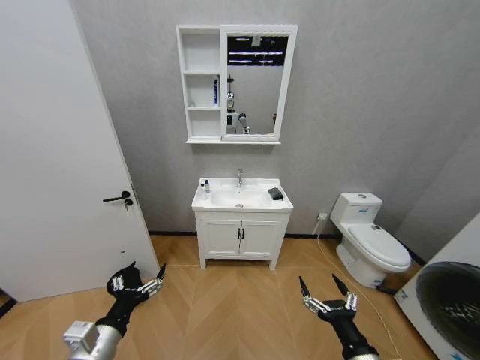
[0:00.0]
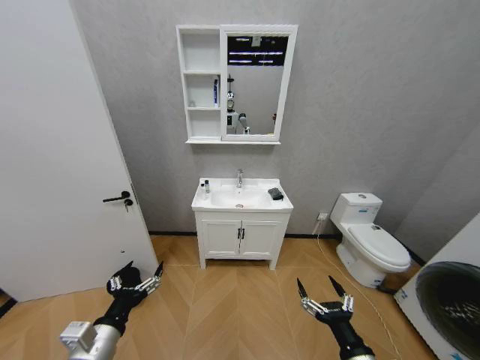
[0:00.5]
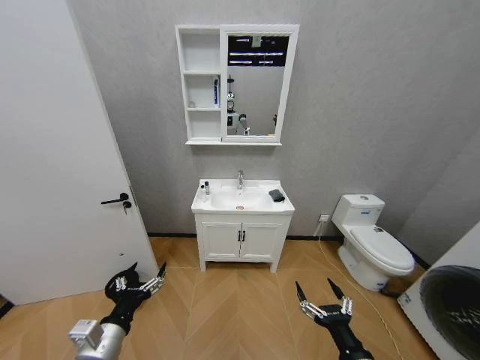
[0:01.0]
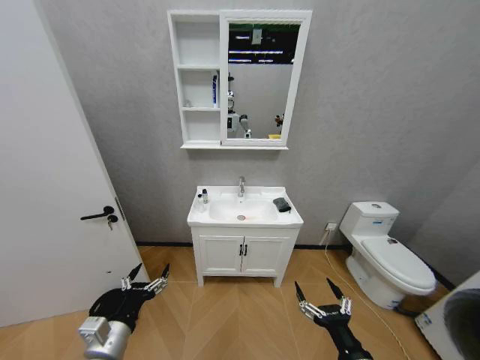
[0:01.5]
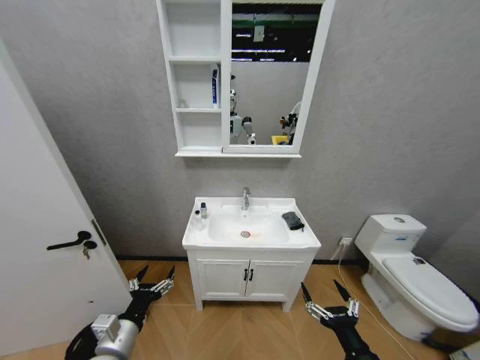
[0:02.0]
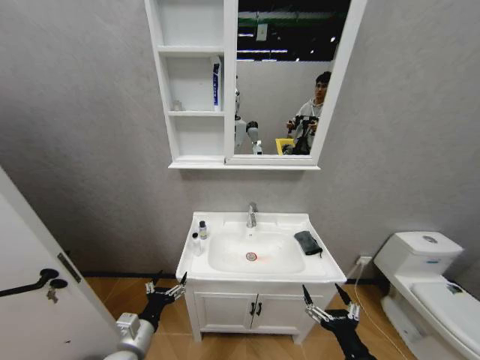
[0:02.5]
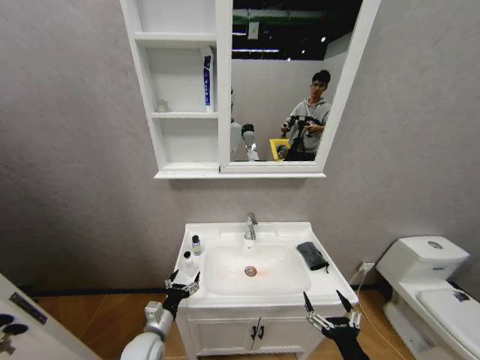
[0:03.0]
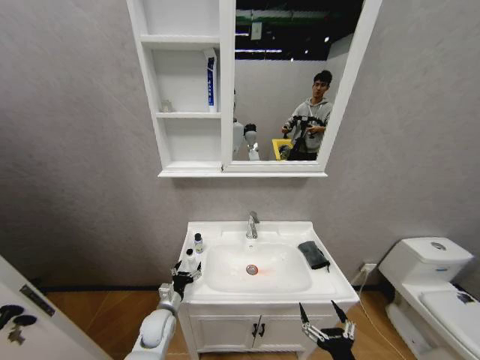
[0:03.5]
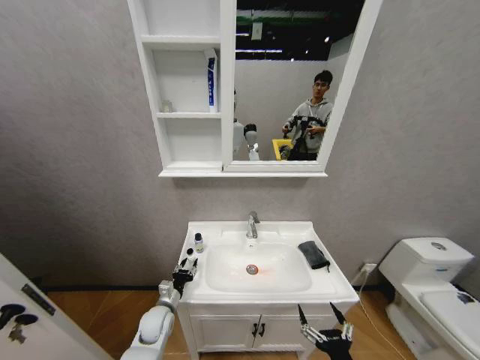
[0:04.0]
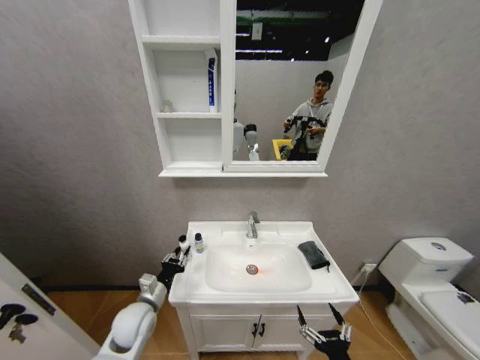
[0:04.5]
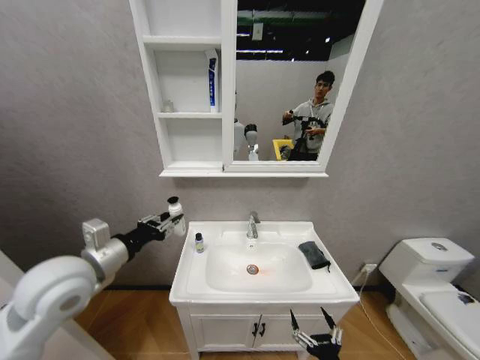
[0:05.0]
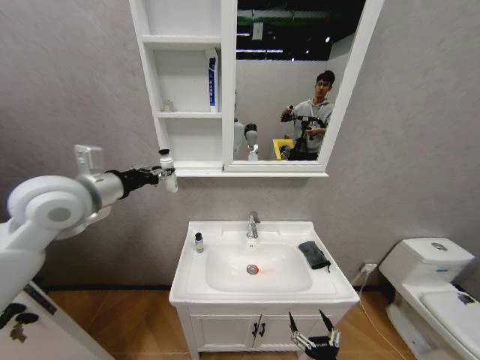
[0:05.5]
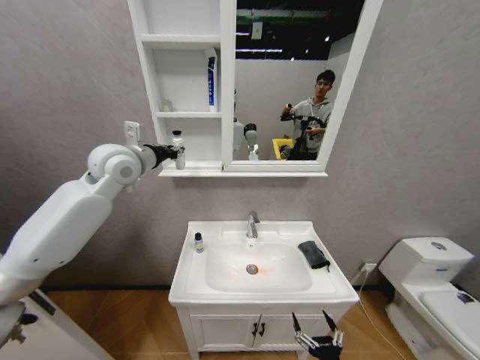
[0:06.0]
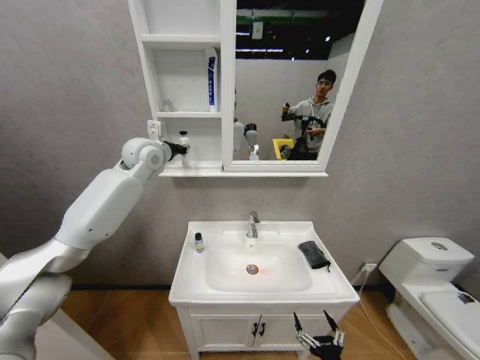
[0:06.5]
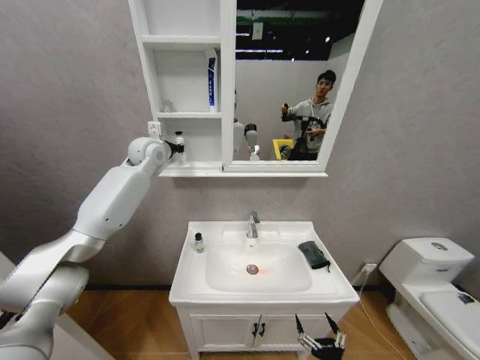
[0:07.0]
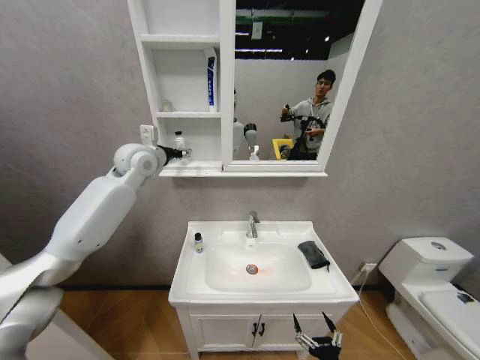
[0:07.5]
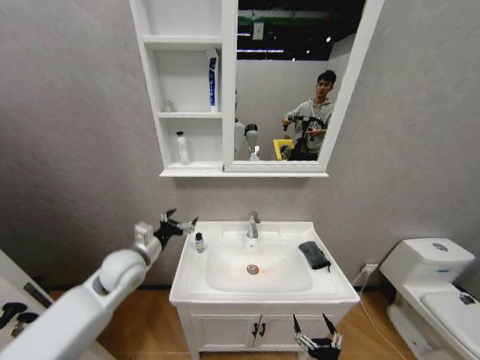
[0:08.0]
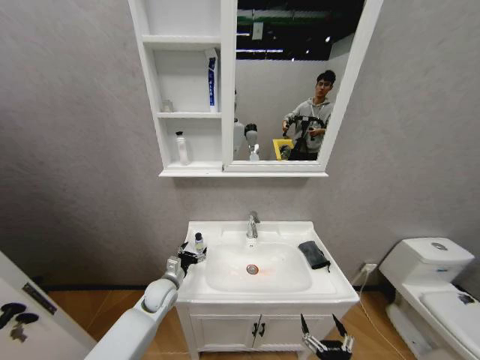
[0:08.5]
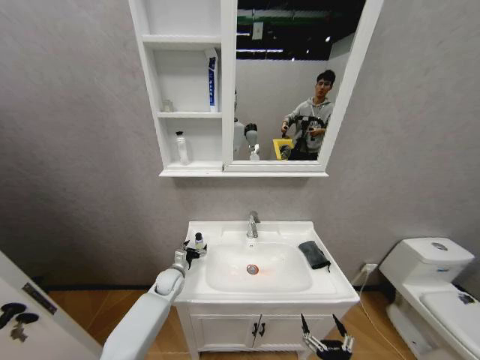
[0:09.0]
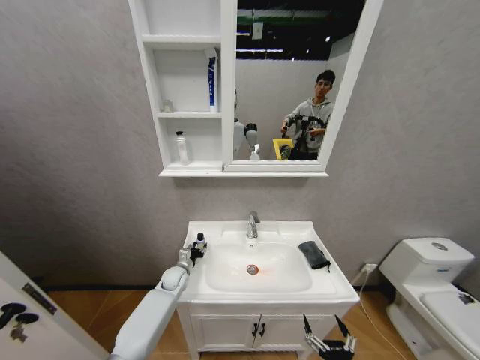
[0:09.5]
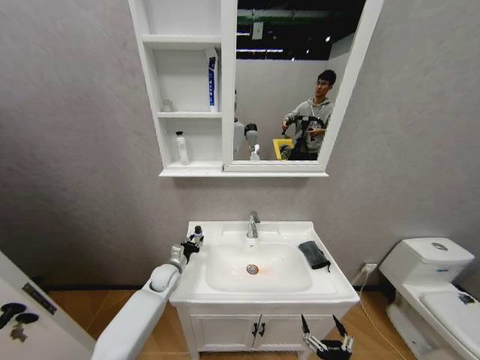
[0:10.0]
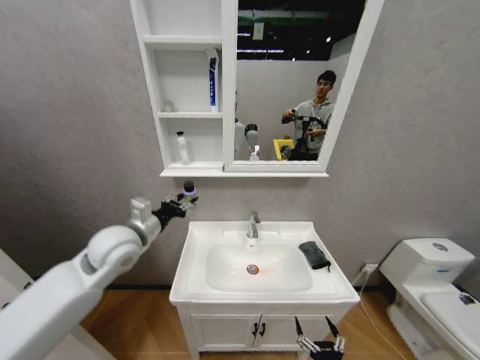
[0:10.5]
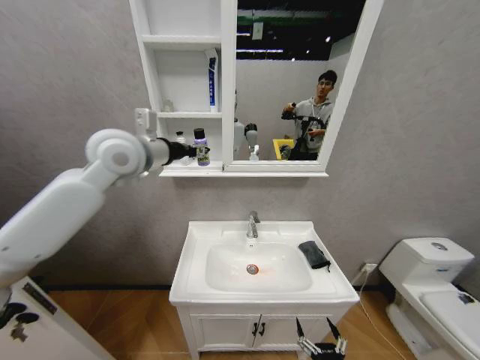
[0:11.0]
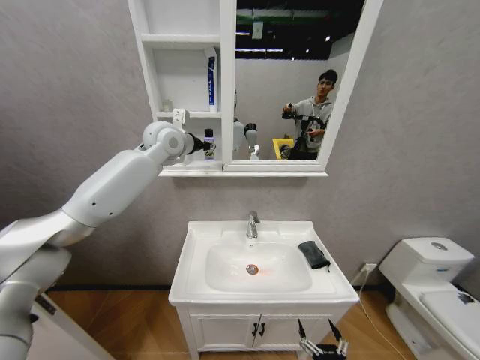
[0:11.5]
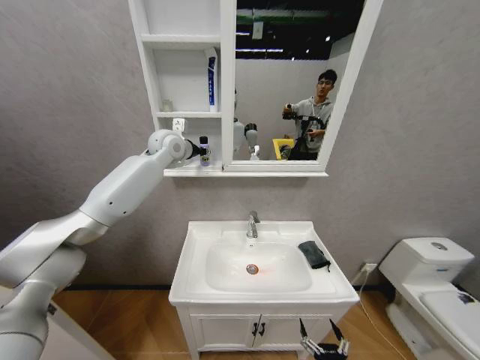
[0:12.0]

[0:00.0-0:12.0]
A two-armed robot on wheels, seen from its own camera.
Task of the whole recording: Move facial cleanser and shampoo from washbasin to cabinet, then wipe washbasin with towel.
0:02.0 to 0:04.0: The right gripper heads downward, covering roughly 5 cm; the left gripper heads forward and downward, covering roughly 20 cm, and closes up.
0:04.0 to 0:06.0: The left gripper moves upward, some 50 cm, and closes up.
0:06.0 to 0:08.0: The left gripper is displaced downward by about 25 cm, and opens.
0:08.0 to 0:10.0: The left gripper travels downward and forward by approximately 20 cm, and closes up.
0:10.0 to 0:12.0: The left gripper goes about 40 cm upward.

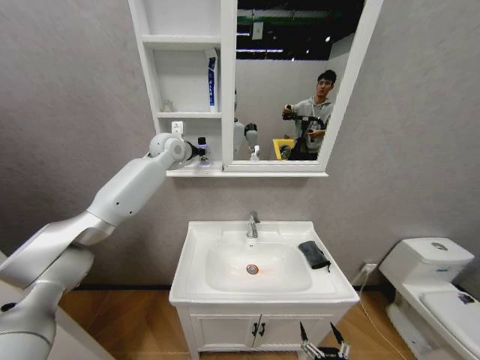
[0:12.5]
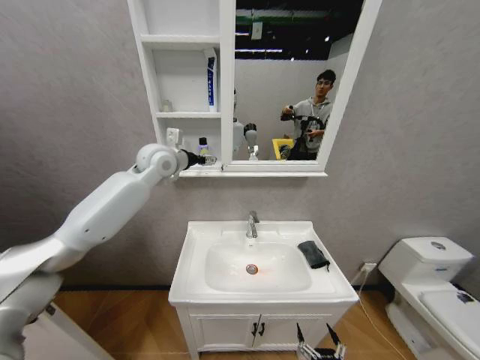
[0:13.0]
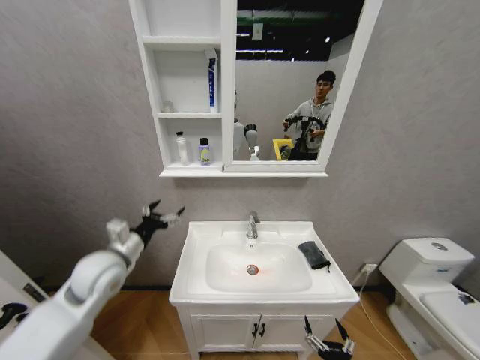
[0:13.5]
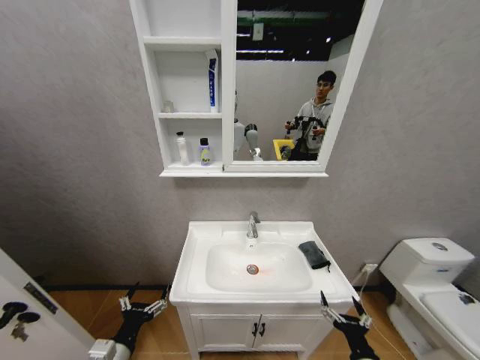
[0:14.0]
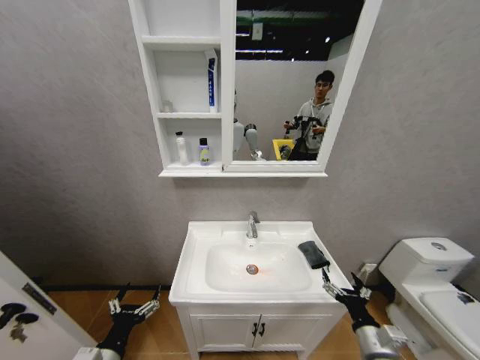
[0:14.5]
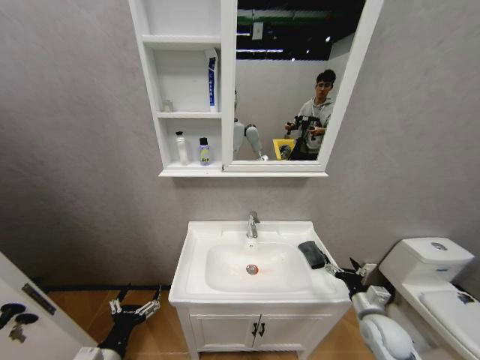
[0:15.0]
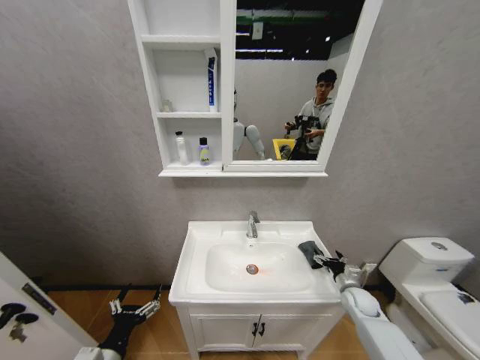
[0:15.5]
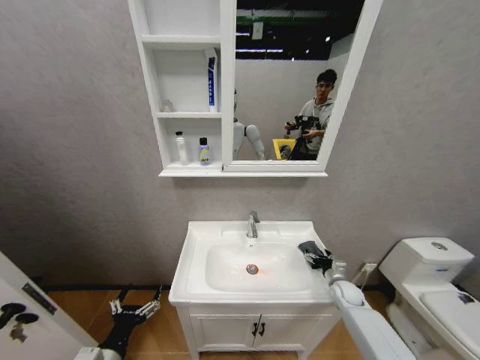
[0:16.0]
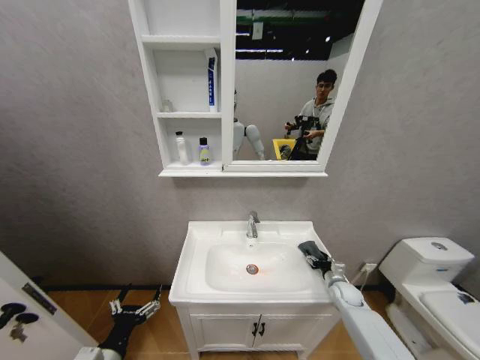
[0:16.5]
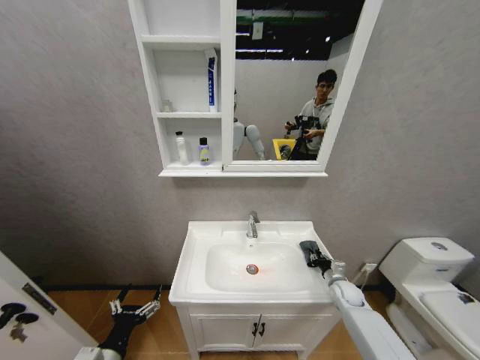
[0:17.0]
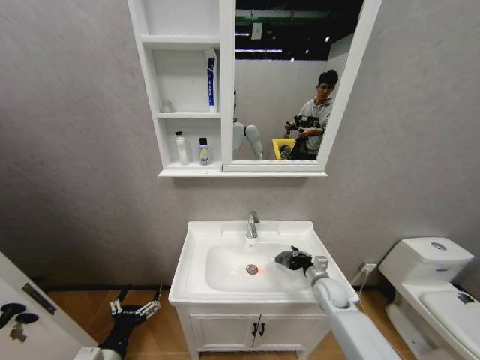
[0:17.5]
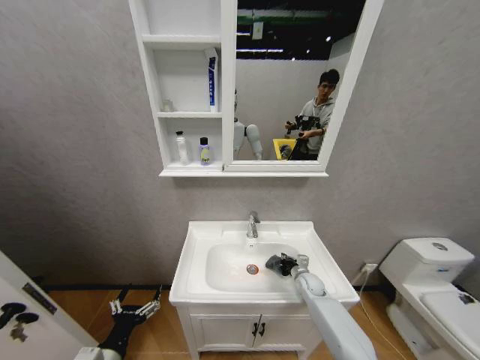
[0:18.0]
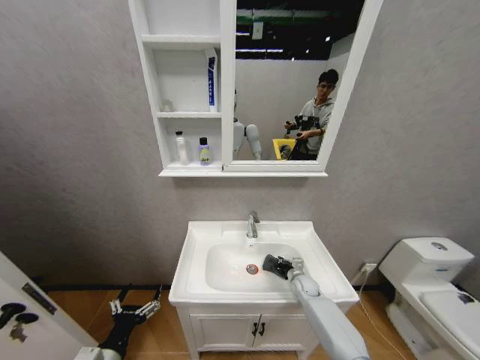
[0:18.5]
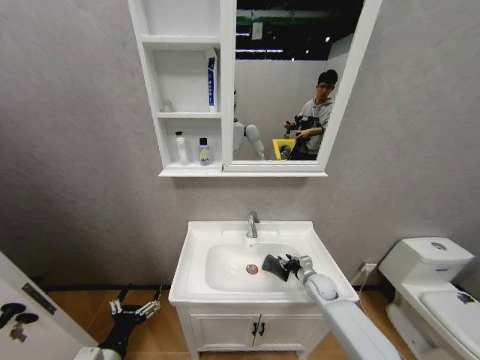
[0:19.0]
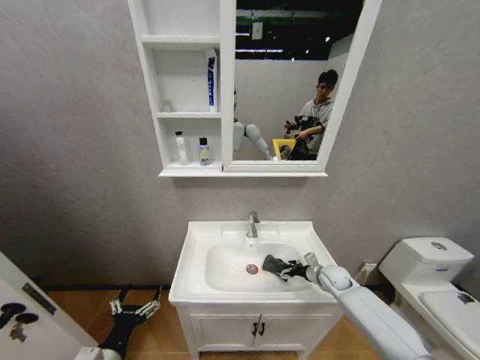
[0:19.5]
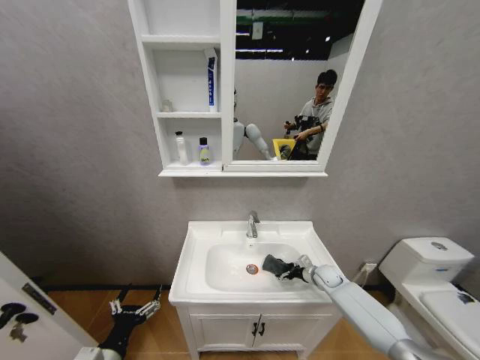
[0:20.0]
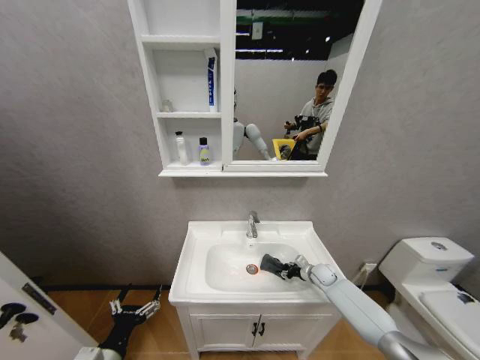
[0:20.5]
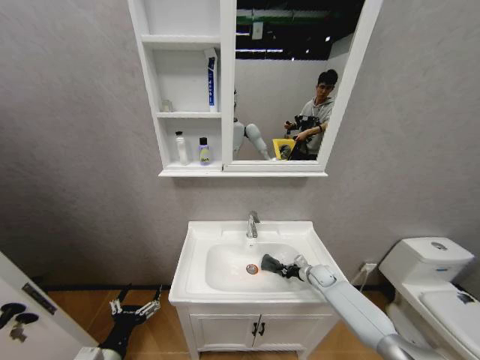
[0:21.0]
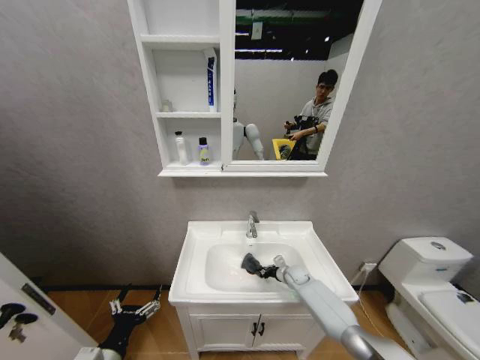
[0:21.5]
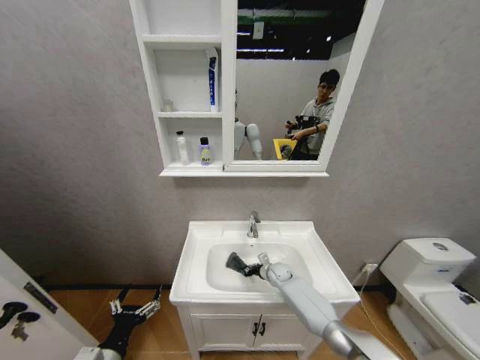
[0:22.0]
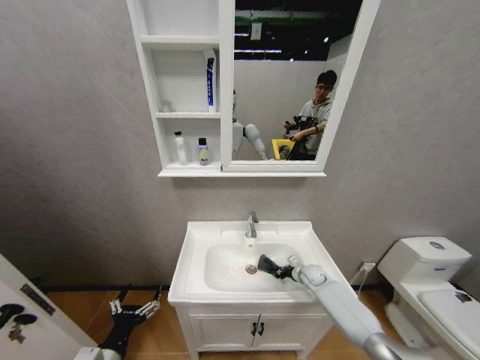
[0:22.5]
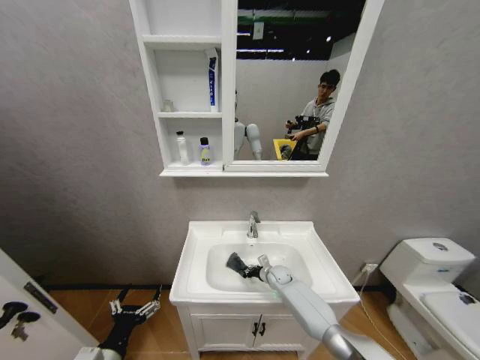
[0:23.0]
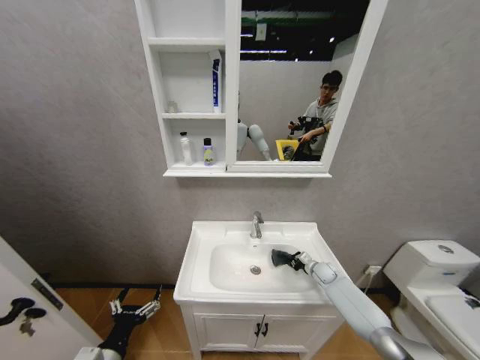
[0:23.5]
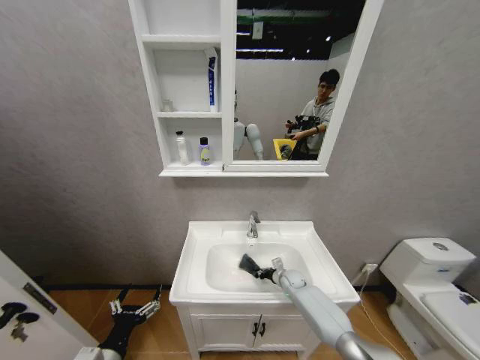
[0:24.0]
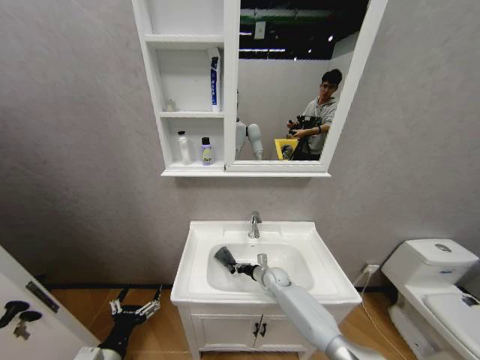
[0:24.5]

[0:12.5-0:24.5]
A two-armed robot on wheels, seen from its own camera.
Task of the whole recording: Move facial cleanser and shampoo from washbasin to cabinet, then wipe washbasin with towel.
0:12.5 to 0:14.5: The left gripper shifts approximately 60 cm backward and downward, and opens. Meanwhile the right gripper travels forward, upward and to the right by approximately 15 cm.
0:14.5 to 0:16.5: The right gripper shifts some 25 cm forward.
0:16.5 to 0:18.5: The right gripper shifts approximately 15 cm to the left, and closes its fingers.
0:18.5 to 0:20.5: The right gripper travels to the right by approximately 10 cm, and opens.
0:20.5 to 0:22.5: The right gripper moves roughly 15 cm to the left and comes back, and closes its fingers.
0:22.5 to 0:24.5: The right gripper swings left and right, about 20 cm each way, with 2 reversals.

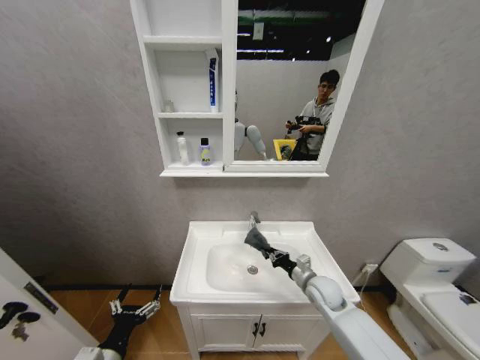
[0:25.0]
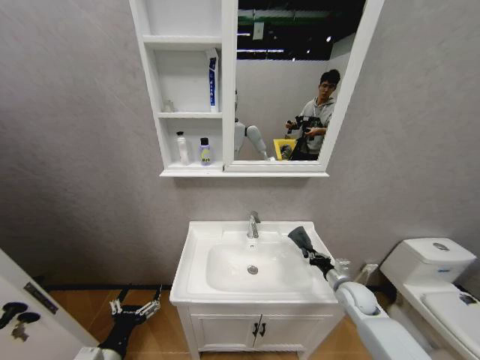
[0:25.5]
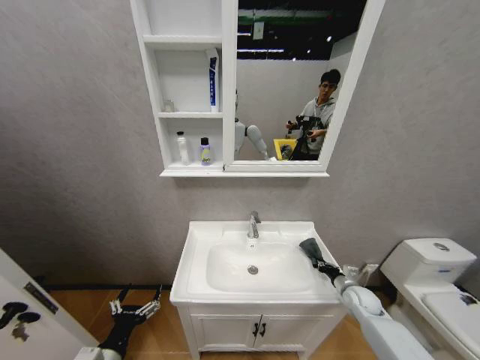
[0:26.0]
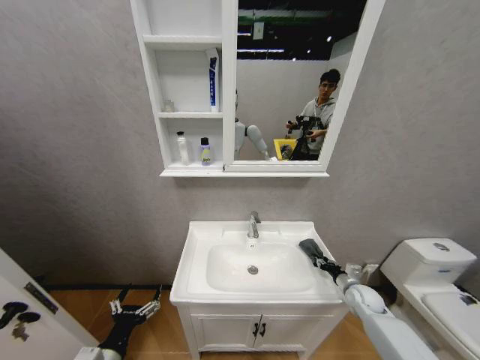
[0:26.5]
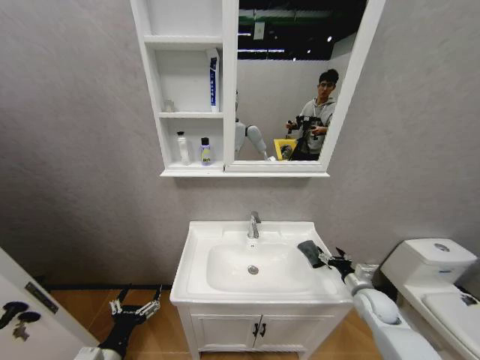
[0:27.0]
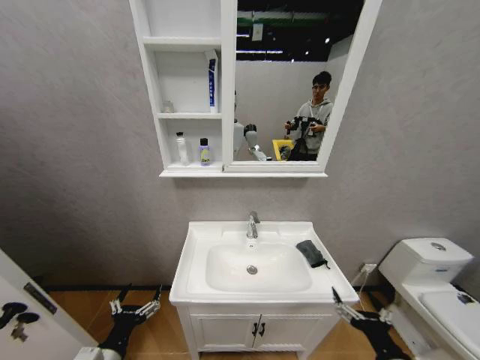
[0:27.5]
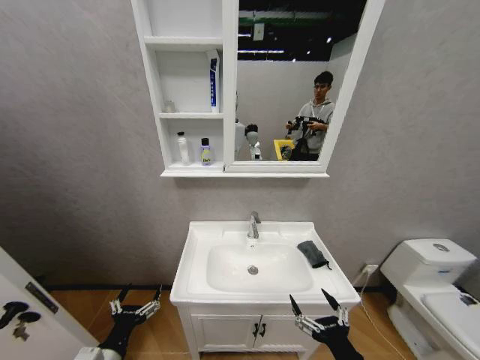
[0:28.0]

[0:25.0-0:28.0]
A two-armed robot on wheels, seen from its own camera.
Task of the whole recording: Move facial cleanser and shampoo from washbasin to cabinet, then wipe washbasin with towel.
0:25.0 to 0:26.5: The right gripper is displaced to the right by approximately 15 cm.
0:26.5 to 0:28.0: The right gripper is displaced backward and to the left by some 35 cm, and opens its fingers.
